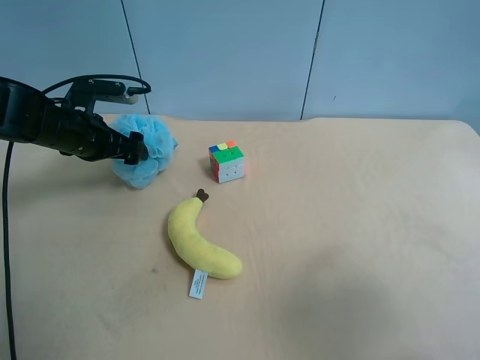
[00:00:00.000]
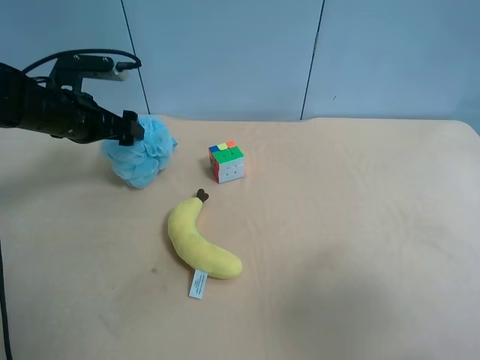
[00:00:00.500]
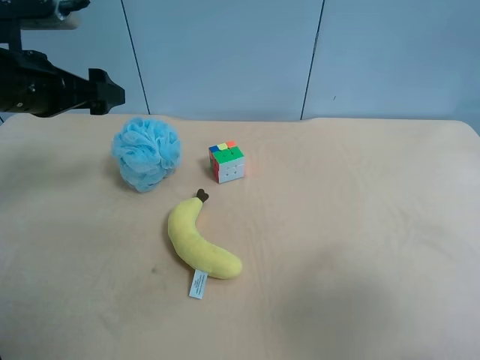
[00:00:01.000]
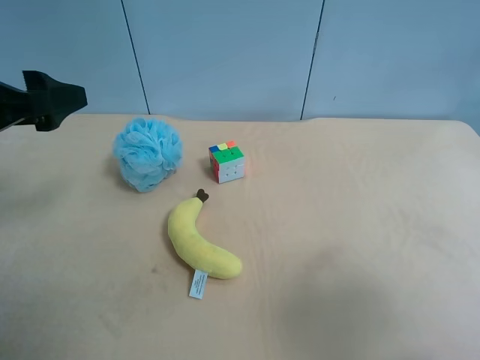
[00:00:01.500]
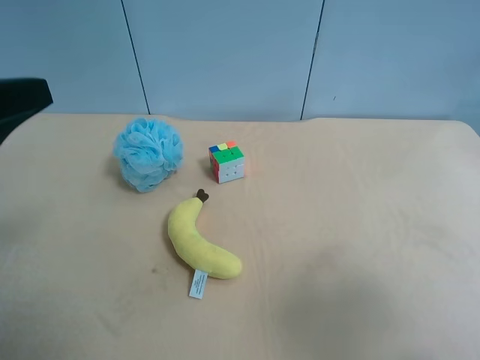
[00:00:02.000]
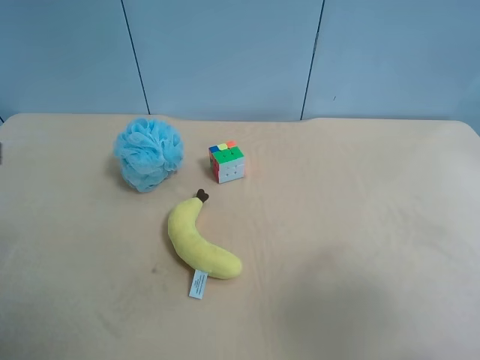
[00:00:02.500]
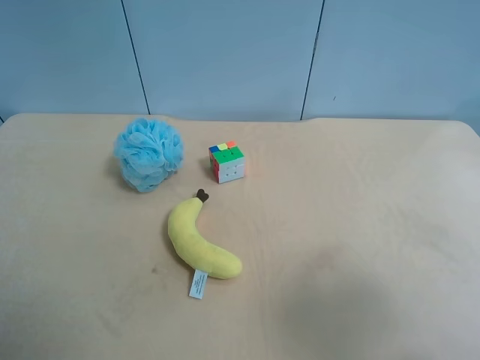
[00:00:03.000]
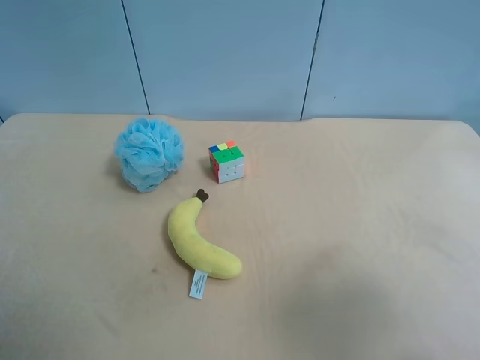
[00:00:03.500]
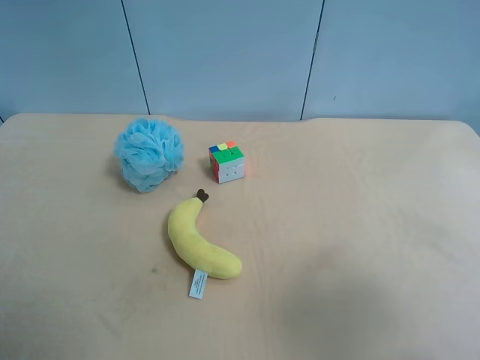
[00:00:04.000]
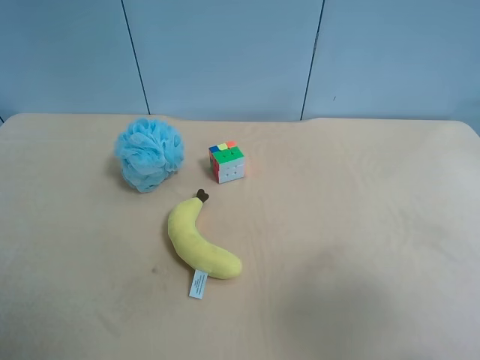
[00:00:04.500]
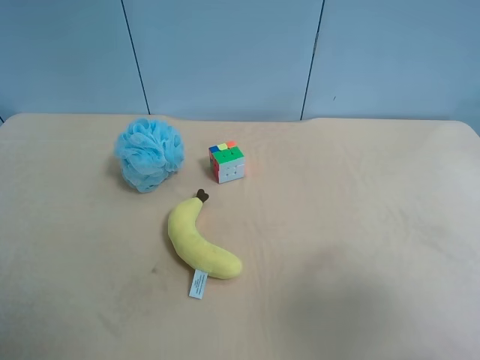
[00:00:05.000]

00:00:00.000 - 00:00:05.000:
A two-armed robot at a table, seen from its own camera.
Task of the whole recording: use the right gripper to pick up the item and transfer it from the right gripper to the left gripper.
00:00:00.000 - 00:00:02.500: The left gripper goes roughly 30 cm backward and upward.

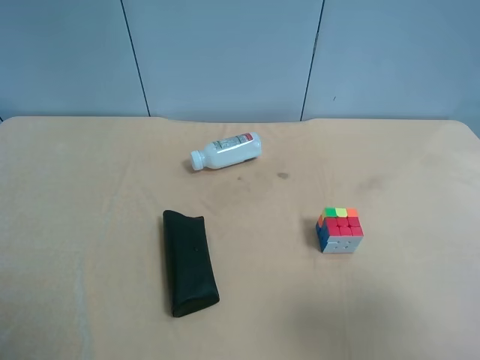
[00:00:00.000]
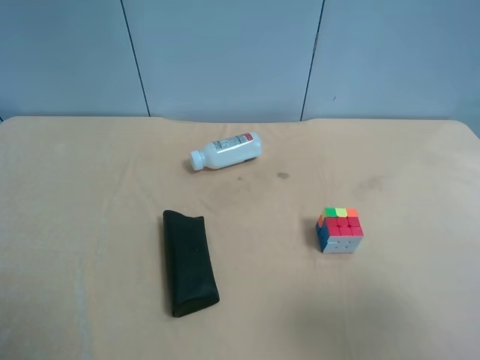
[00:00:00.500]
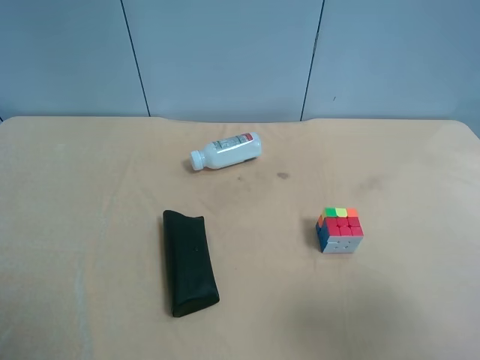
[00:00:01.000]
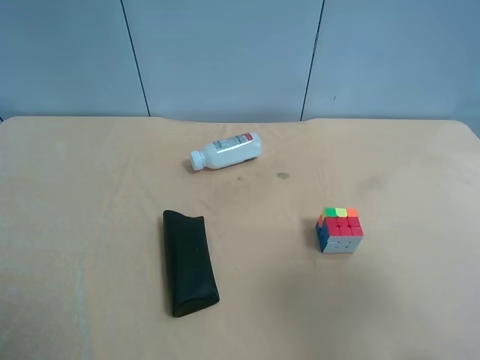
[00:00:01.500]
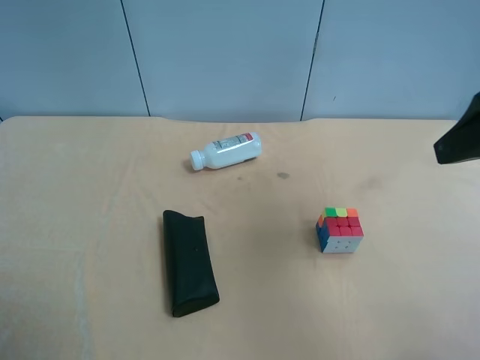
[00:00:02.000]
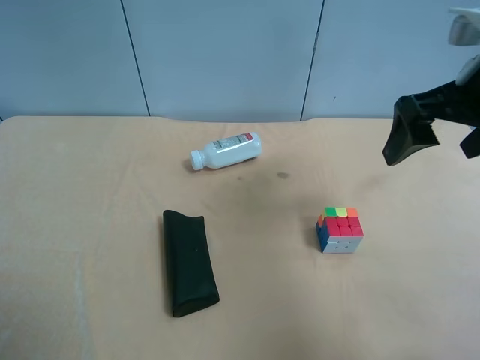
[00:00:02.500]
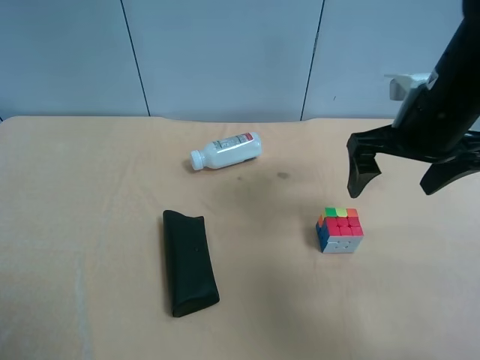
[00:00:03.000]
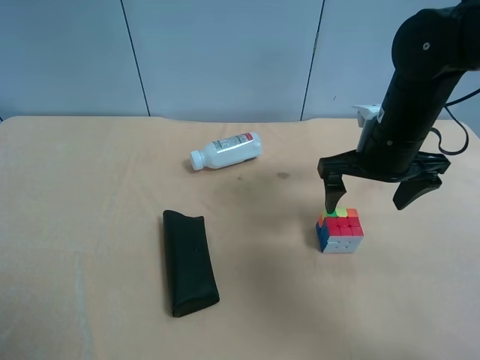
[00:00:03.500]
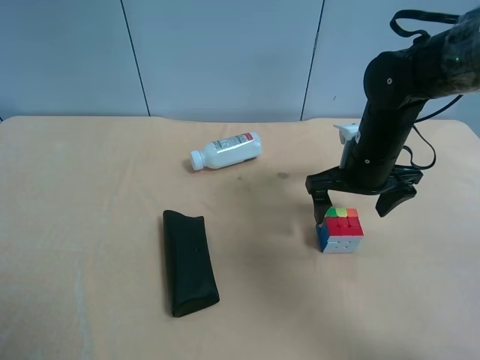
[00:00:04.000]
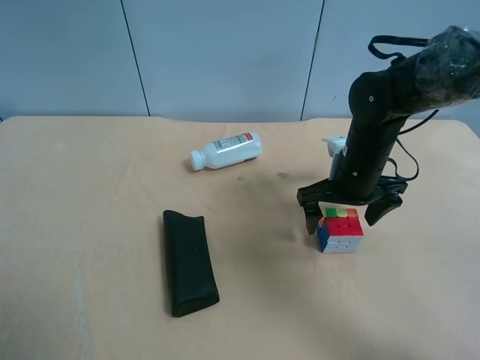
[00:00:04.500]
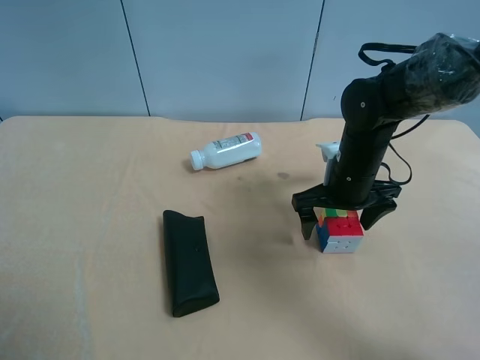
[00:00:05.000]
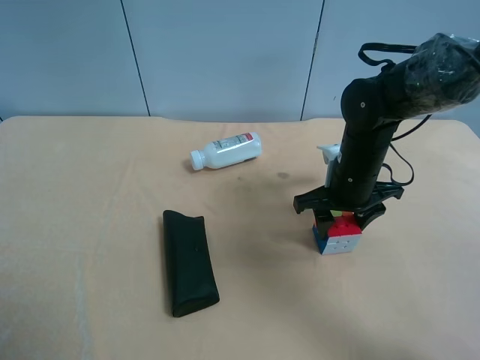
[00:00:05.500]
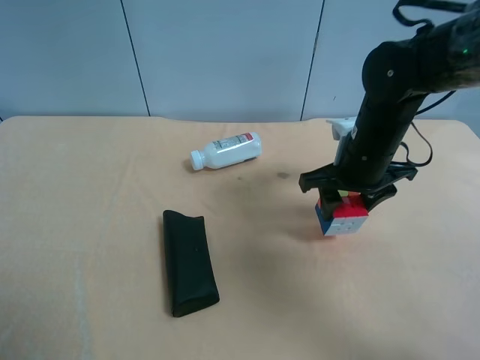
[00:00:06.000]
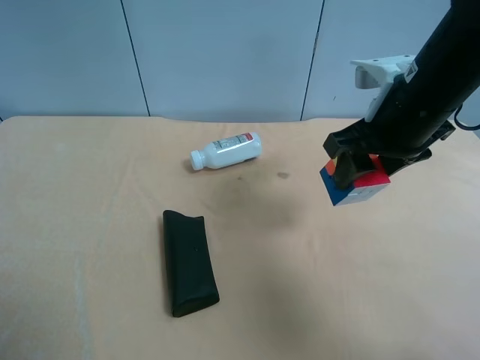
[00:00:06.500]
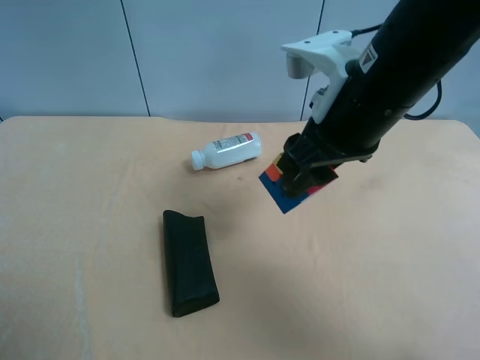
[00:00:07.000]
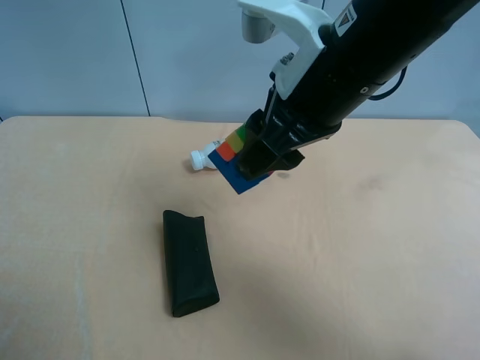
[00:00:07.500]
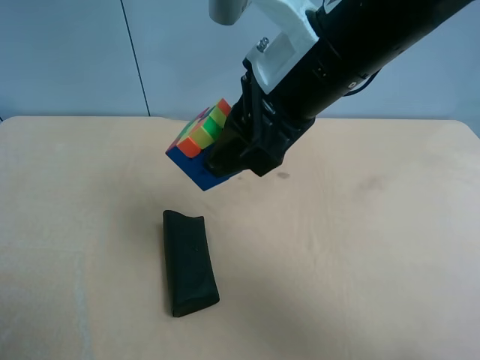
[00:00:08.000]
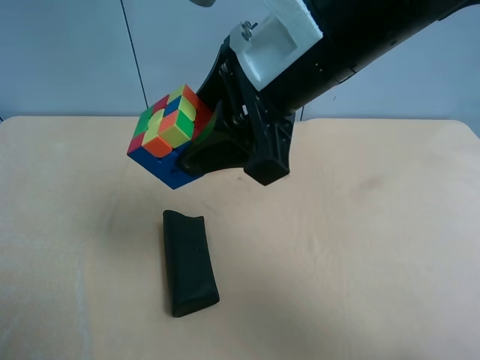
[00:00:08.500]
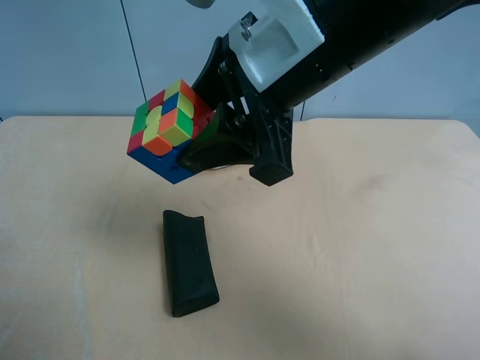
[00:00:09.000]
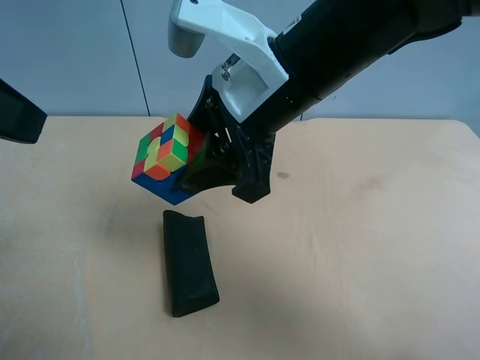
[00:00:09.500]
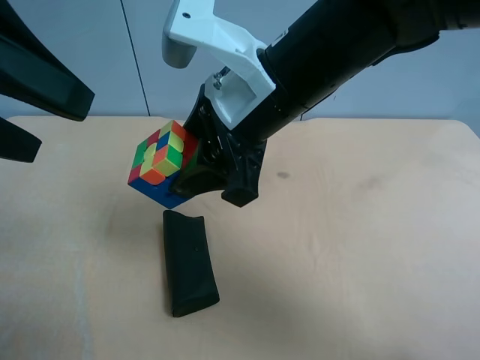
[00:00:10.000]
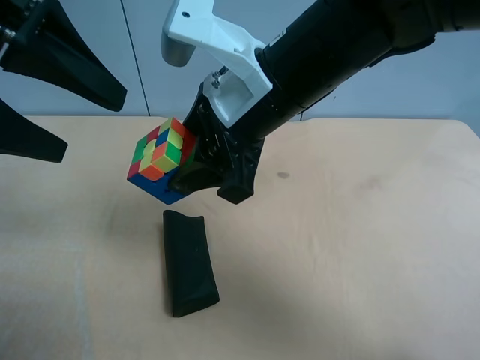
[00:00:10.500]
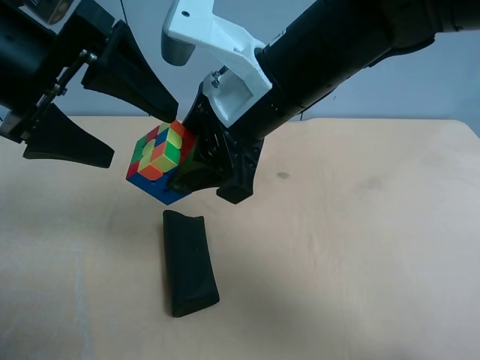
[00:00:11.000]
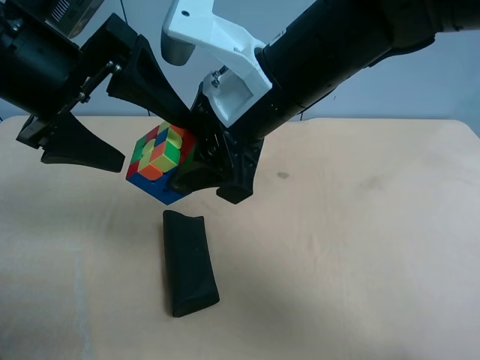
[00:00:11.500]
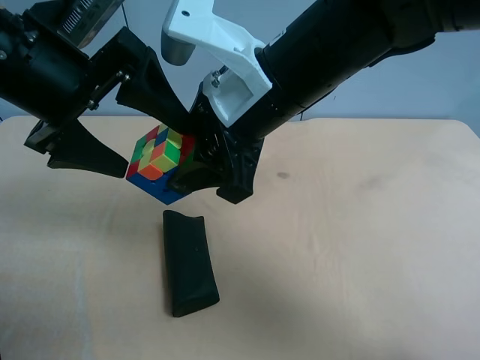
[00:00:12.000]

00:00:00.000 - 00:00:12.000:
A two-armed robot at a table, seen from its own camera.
Task of the whole recording: use the right gripper to pick up the item and transfer it from the right gripper to the left gripper.
00:00:00.000 - 00:00:02.000: The right gripper shifts roughly 15 cm forward and upward.
00:00:02.000 - 00:00:04.000: The right gripper heads downward, forward and to the left, covering about 25 cm.
00:00:04.000 - 00:00:06.000: The right gripper closes its fingers.
00:00:06.000 - 00:00:08.000: The right gripper travels upward, to the left and backward by about 20 cm.
00:00:08.000 - 00:00:10.000: The left gripper is displaced forward, to the right and upward by roughly 20 cm.
00:00:10.000 - 00:00:12.000: The left gripper travels forward, downward and to the right by roughly 10 cm.

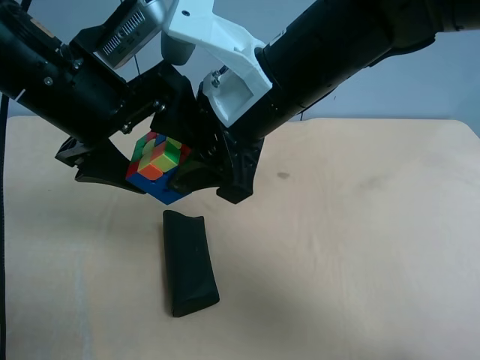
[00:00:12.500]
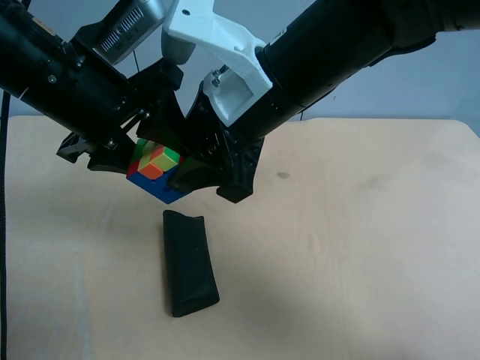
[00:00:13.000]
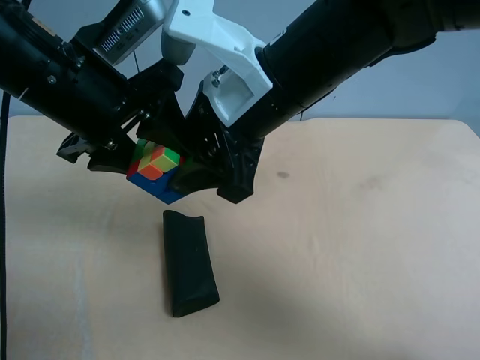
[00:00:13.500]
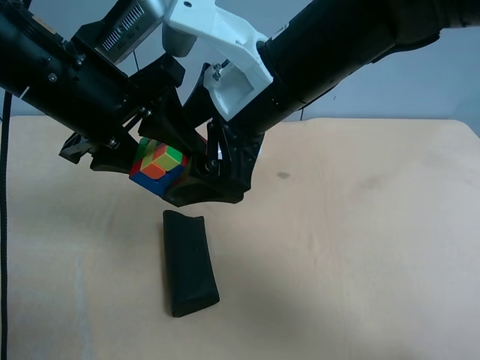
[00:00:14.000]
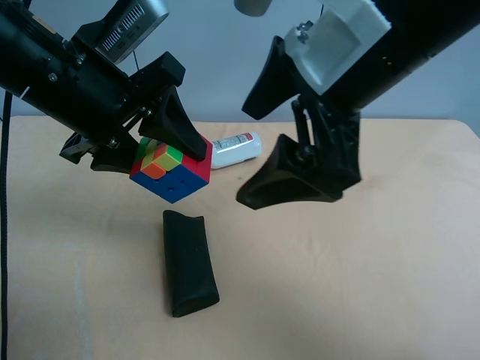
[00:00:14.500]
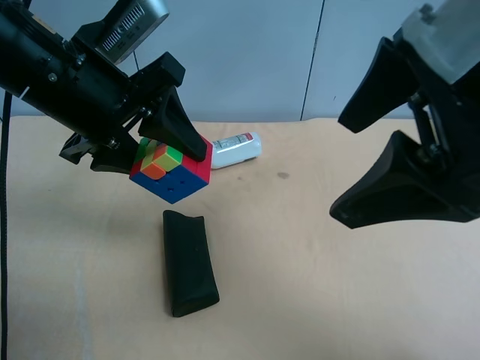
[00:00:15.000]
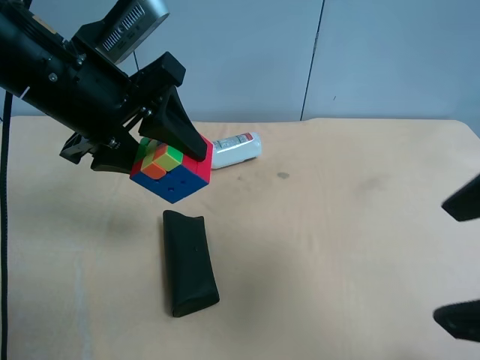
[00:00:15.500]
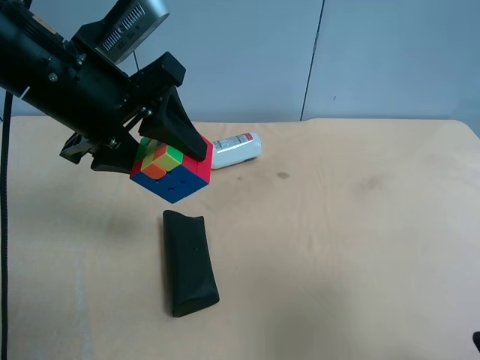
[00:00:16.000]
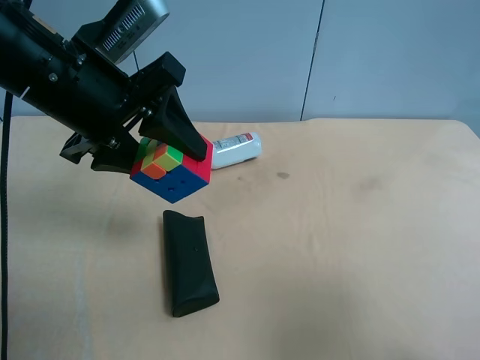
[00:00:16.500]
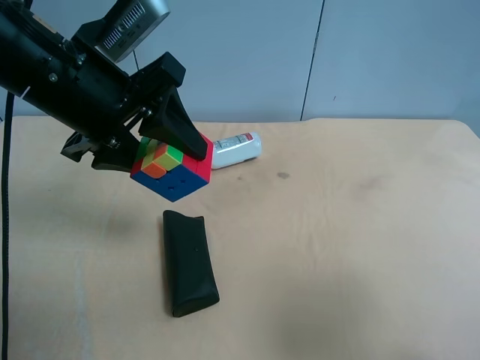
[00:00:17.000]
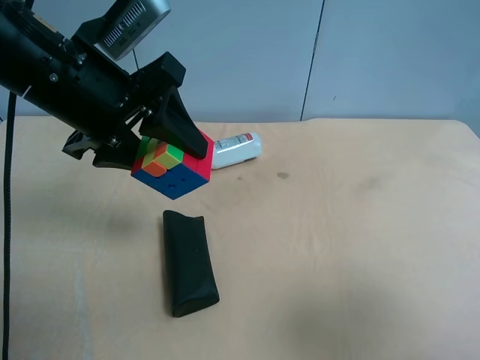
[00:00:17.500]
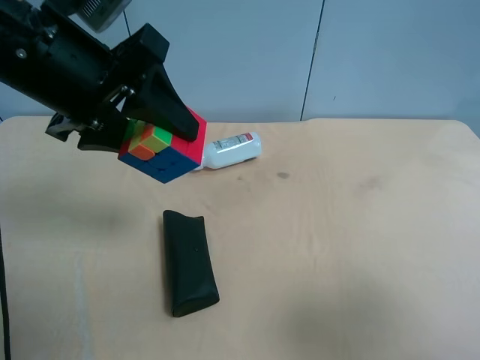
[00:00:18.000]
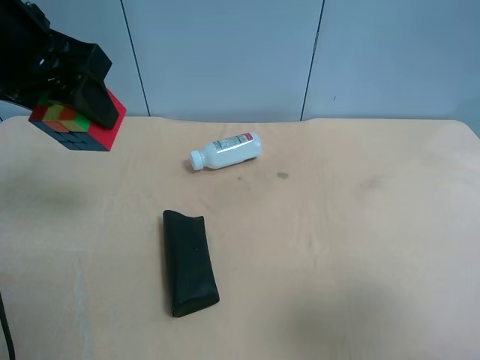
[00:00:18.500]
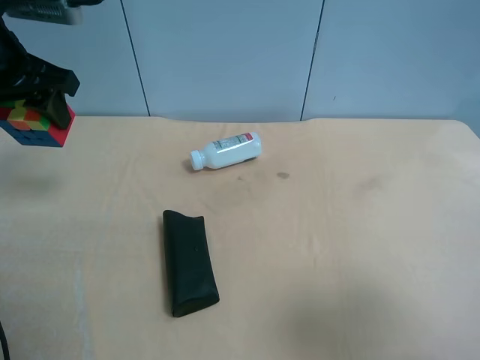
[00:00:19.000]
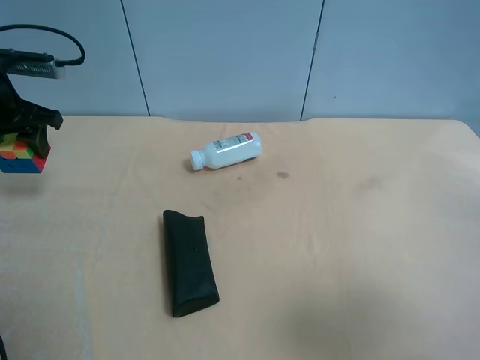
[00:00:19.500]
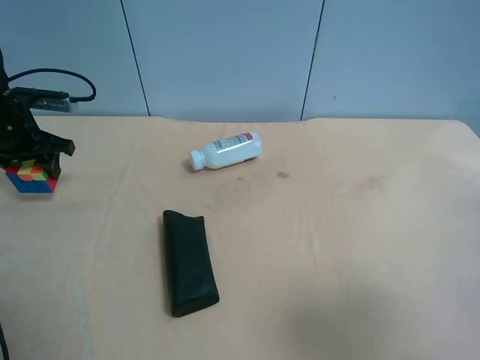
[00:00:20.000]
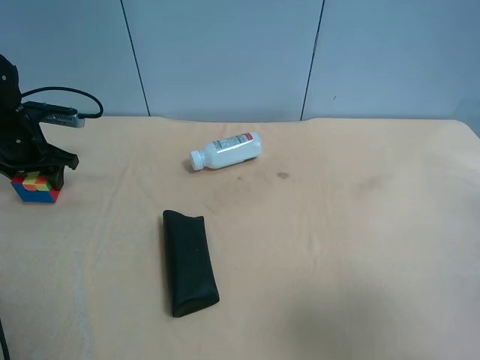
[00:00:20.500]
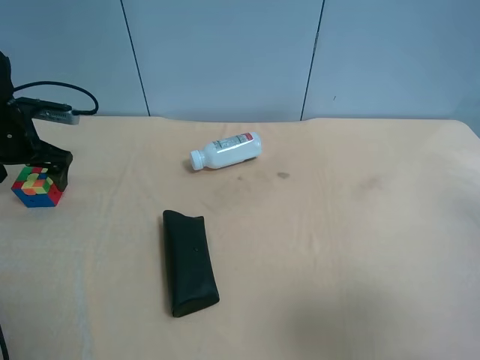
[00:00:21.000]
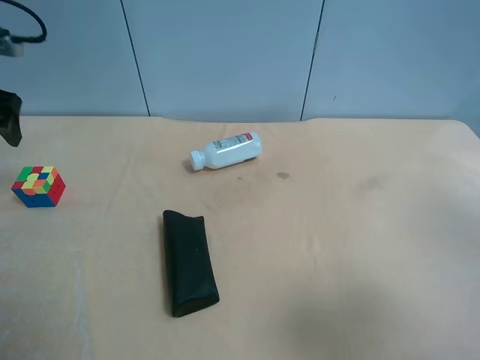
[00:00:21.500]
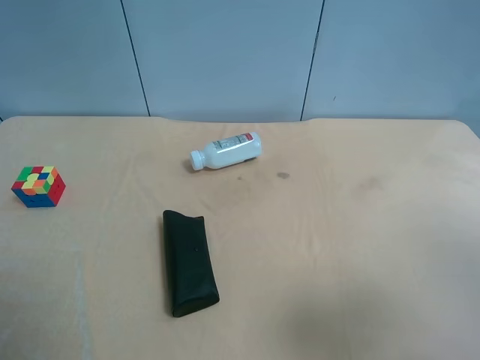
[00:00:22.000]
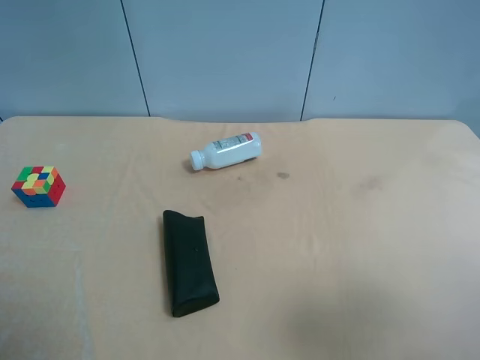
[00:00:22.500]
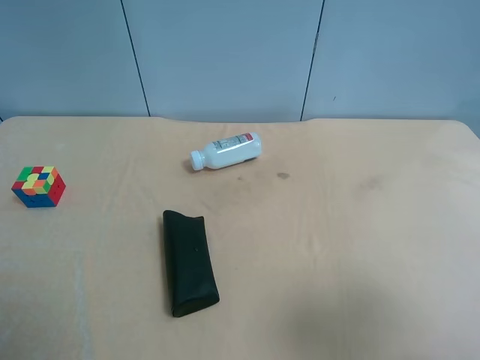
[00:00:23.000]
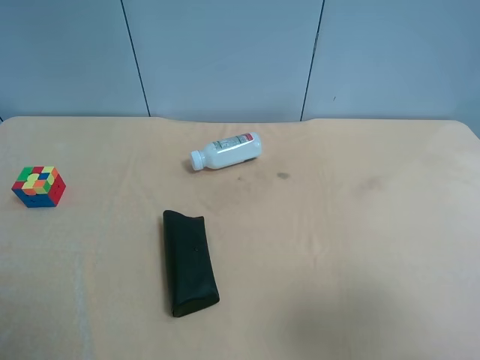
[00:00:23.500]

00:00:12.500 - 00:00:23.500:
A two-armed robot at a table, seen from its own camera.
Task of the whole recording: use the right gripper to pick up the item and transfer it from the right gripper to the left gripper.
00:00:12.500 - 00:00:14.500: The left gripper closes its fingers; the right gripper moves to the right and upward, about 10 cm, and opens its fingers.
00:00:14.500 - 00:00:16.000: The right gripper is displaced to the right and backward by roughly 25 cm.
00:00:18.000 - 00:00:20.000: The left gripper heads to the left, downward and forward, covering roughly 30 cm.
00:00:20.000 - 00:00:21.500: The left gripper travels upward and backward by about 15 cm, and opens.
00:00:21.500 - 00:00:23.500: The left gripper goes approximately 35 cm backward.
